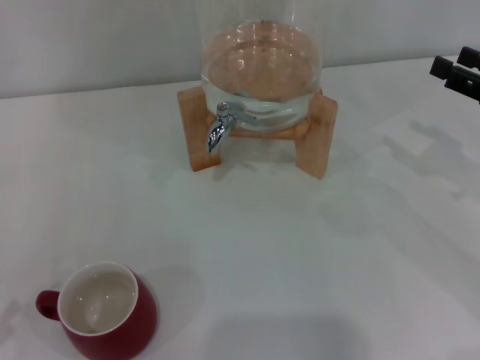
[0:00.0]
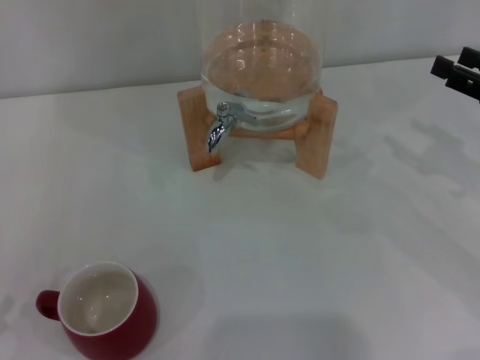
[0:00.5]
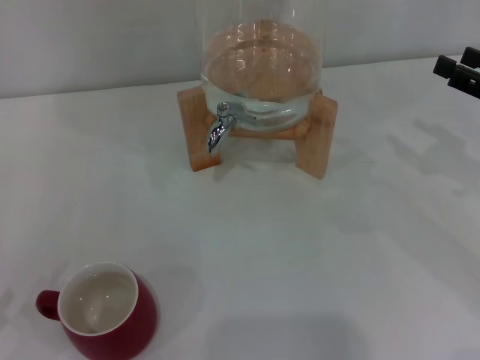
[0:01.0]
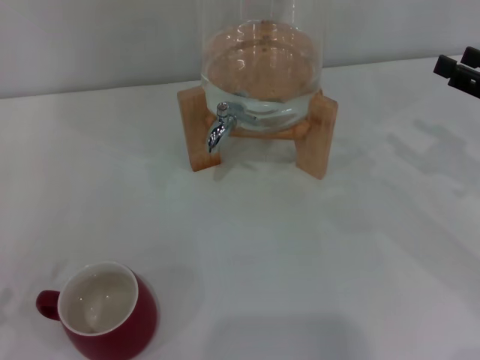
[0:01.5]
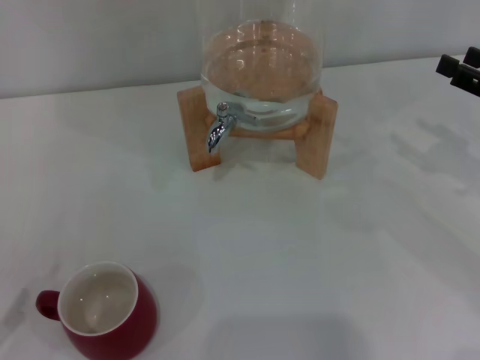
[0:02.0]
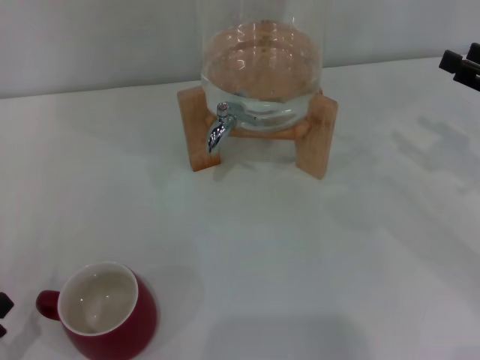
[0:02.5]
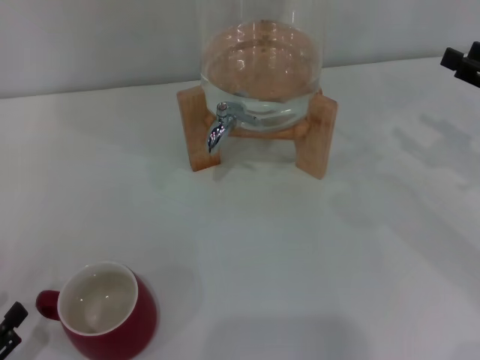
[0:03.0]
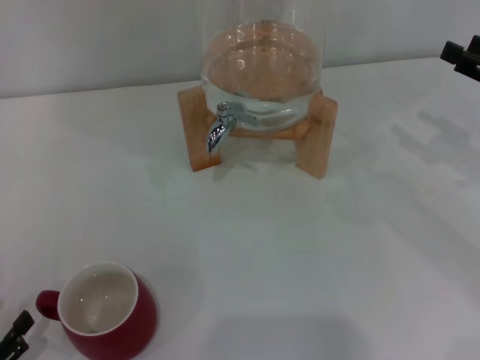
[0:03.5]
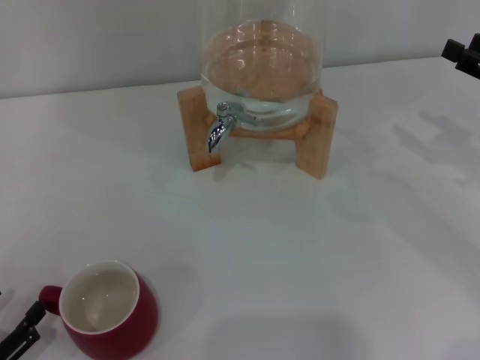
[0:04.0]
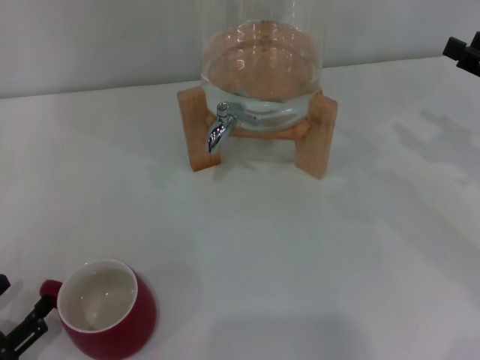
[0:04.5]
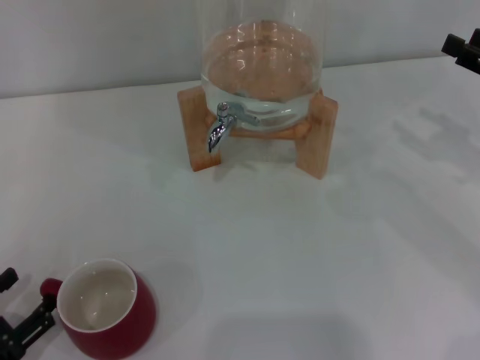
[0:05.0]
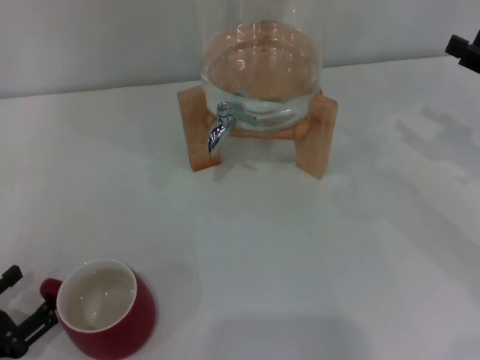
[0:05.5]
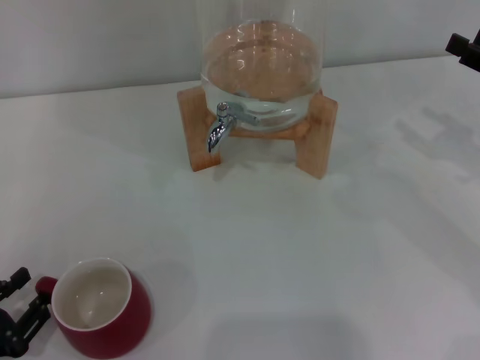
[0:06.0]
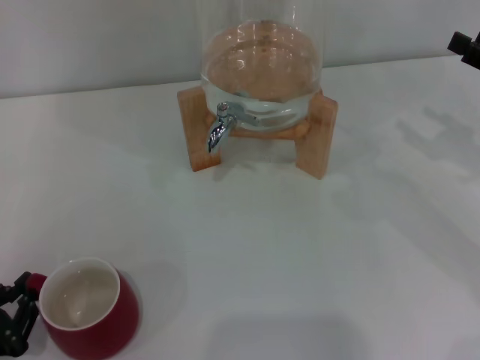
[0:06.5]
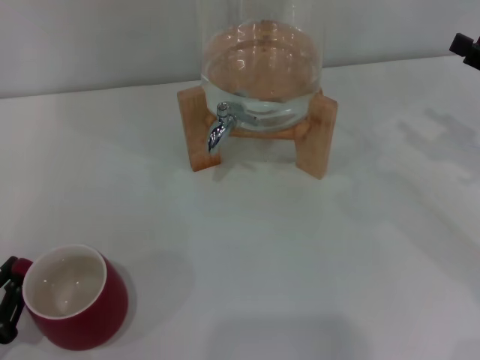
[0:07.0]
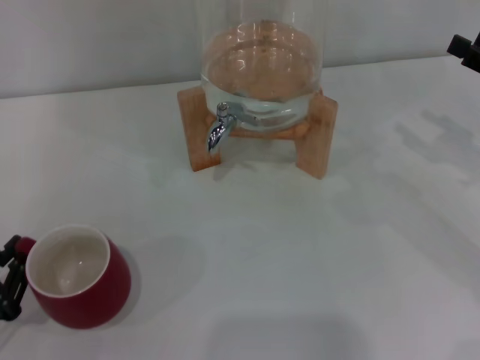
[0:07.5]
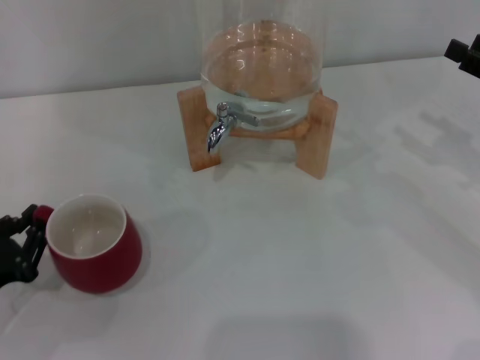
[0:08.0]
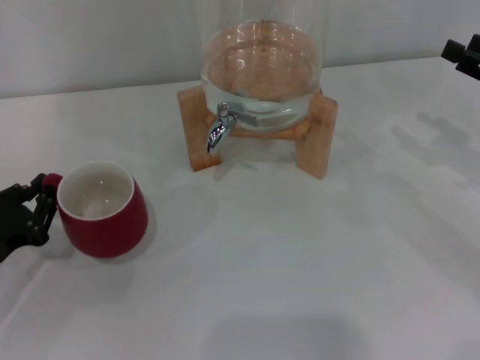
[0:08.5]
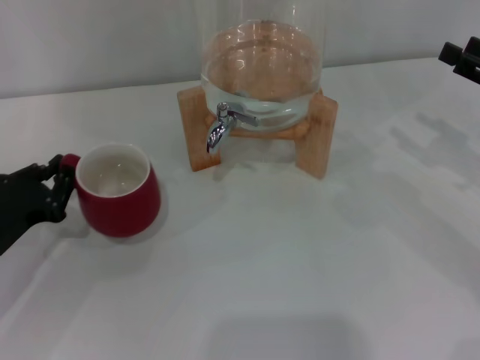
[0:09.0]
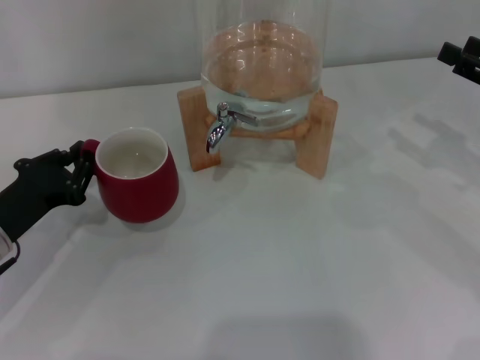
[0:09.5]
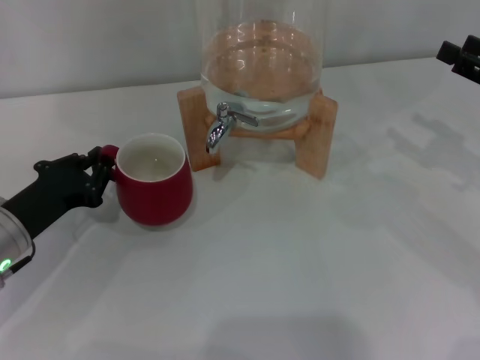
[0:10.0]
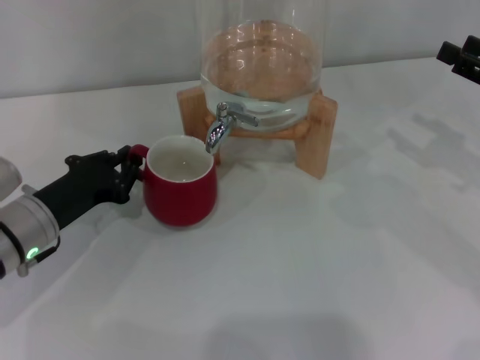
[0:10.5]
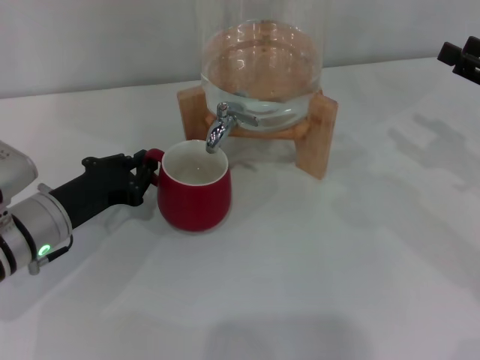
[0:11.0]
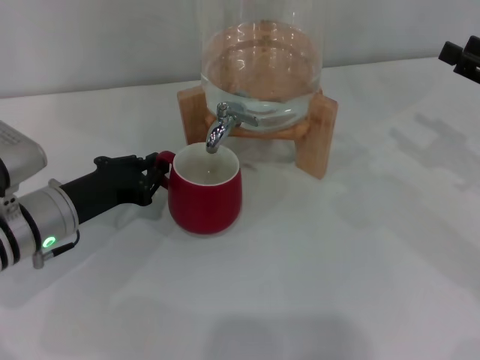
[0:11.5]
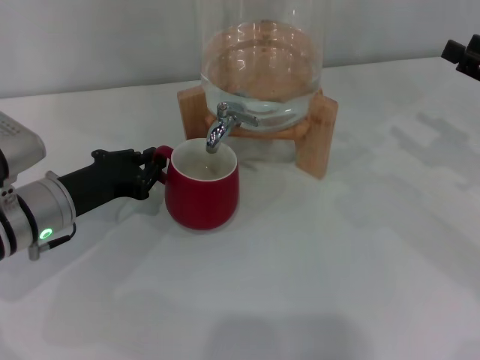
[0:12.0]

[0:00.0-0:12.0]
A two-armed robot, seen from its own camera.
Task of the whole recording: the left gripper pick up the red cup and place it horizontally under the faucet, the right gripper turn on the faucet to fill the cup, and then turn off the faucet.
0:02.0 to 0:04.0: The left gripper shifts some 5 cm downward.
0:04.0 to 0:06.0: The grippers make only small movements.
0:06.0 to 0:08.0: The left gripper heads forward, covering roughly 5 cm, and closes.
0:08.0 to 0:10.0: The left gripper goes some 10 cm forward and to the right.
0:10.0 to 0:12.0: The left gripper shifts by roughly 5 cm.

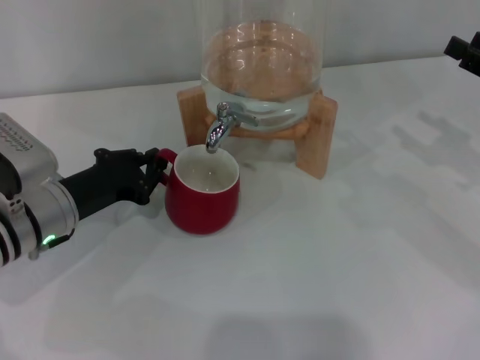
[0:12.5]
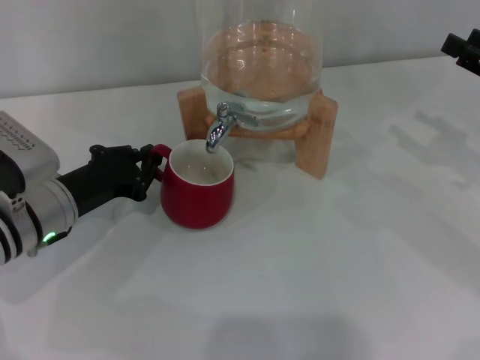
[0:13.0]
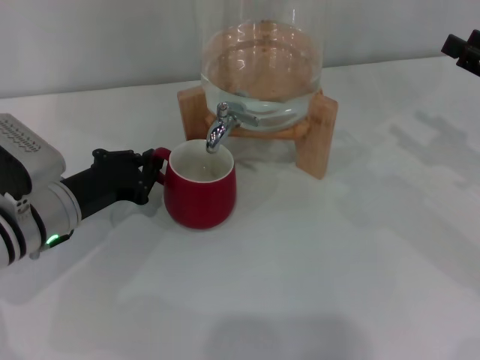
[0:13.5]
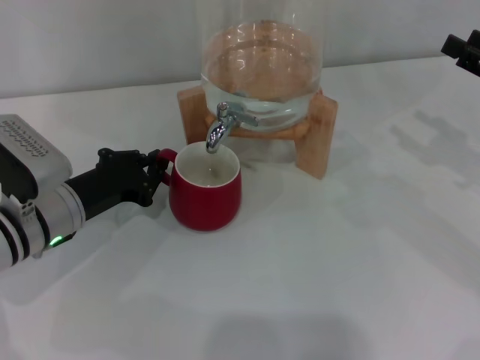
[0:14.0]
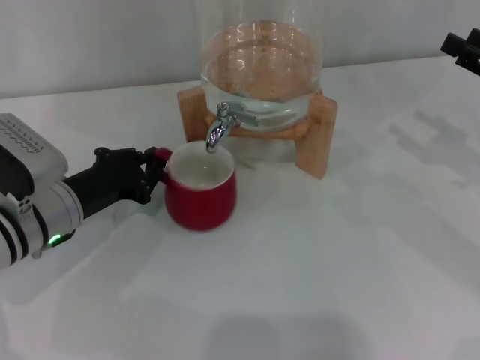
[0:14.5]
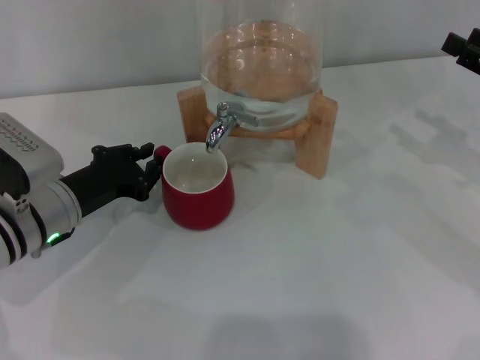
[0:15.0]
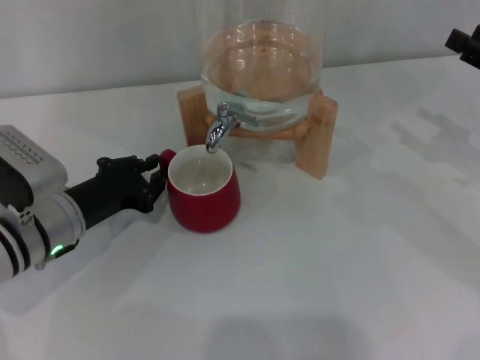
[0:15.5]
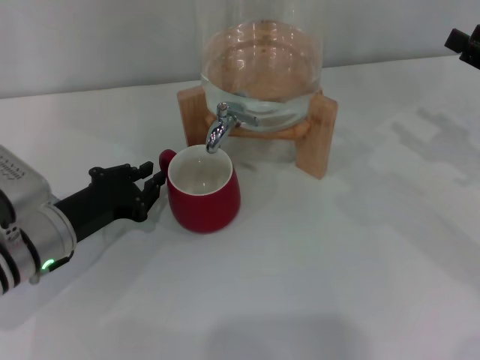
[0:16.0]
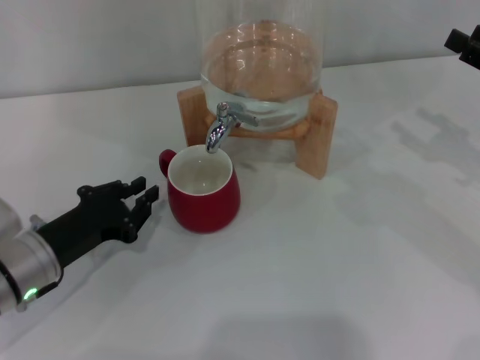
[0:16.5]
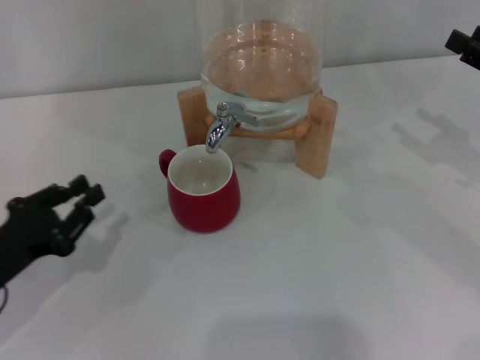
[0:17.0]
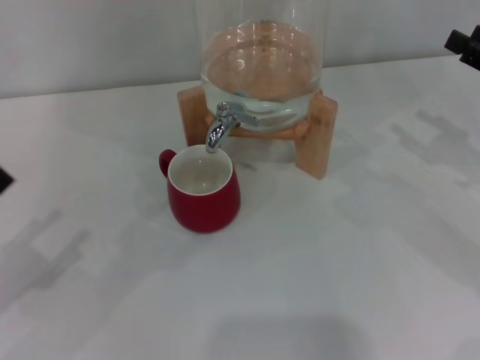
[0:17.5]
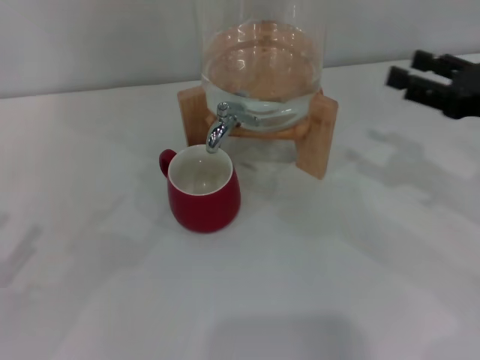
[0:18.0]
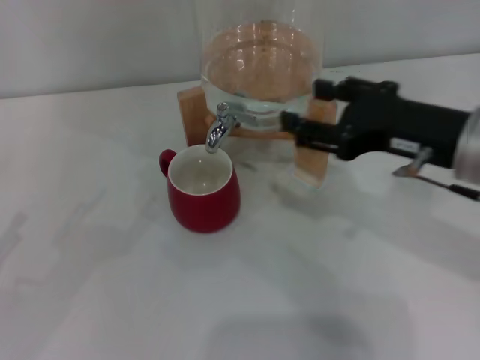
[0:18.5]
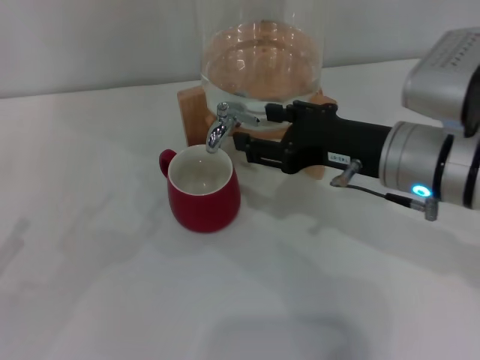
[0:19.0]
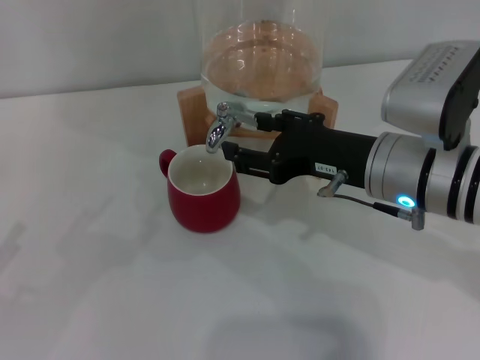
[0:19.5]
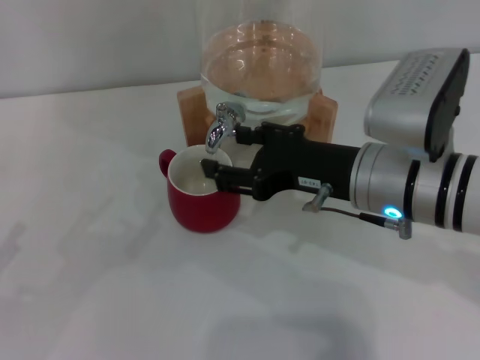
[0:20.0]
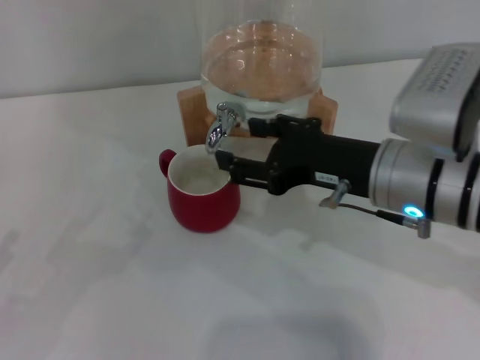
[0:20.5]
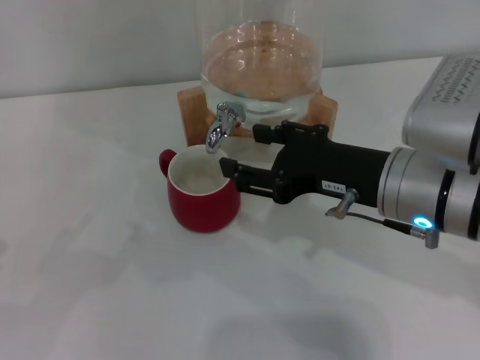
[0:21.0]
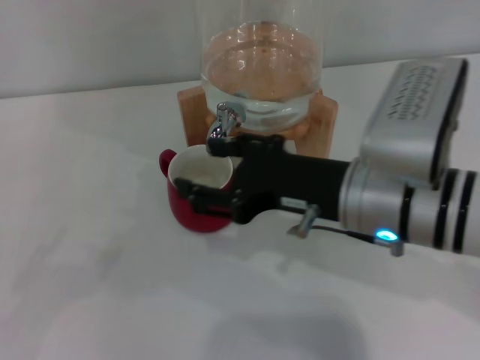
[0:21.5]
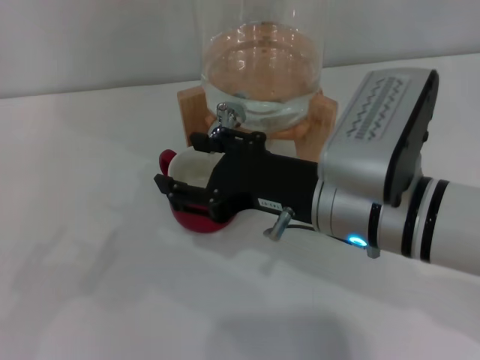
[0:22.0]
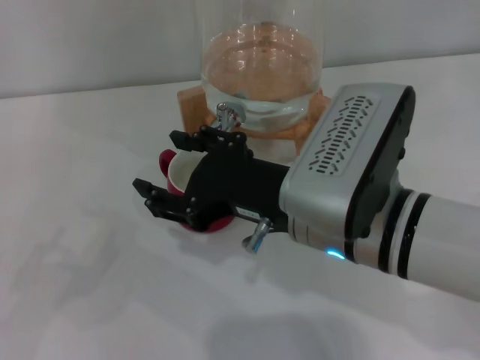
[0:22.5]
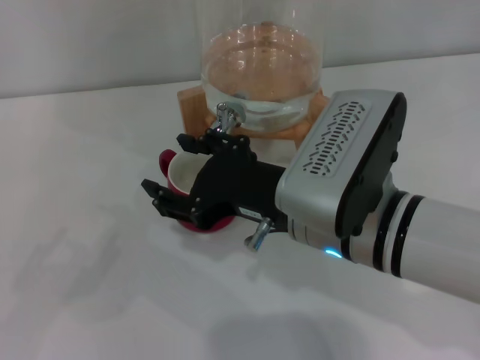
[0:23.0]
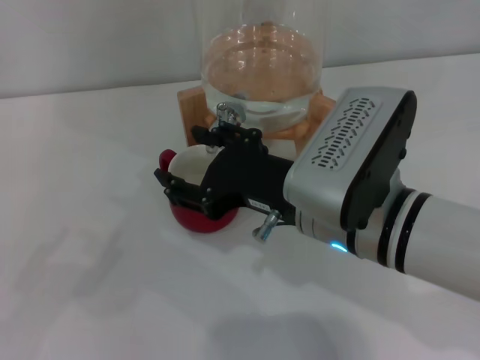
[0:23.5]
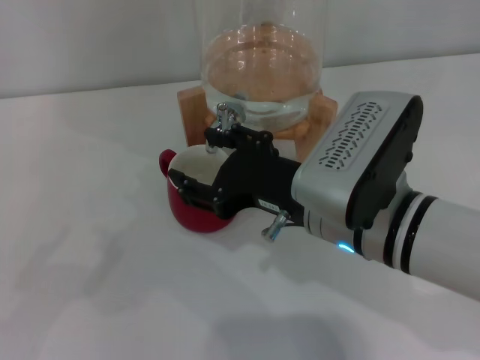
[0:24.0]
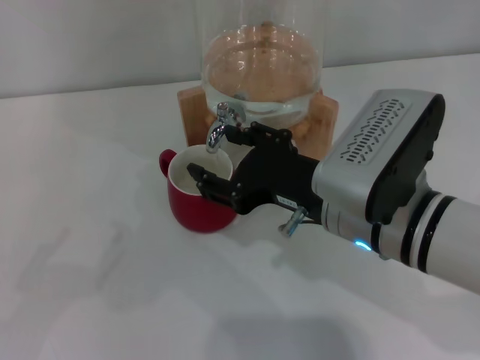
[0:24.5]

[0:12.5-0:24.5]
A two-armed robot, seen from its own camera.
Task of the whole recording: the left gripper pick up the red cup and place it horizontally under the faucet, the right gripper turn on the faucet to fill the cup, and then turn off the faucet.
Step, 0:12.5 to 0:16.5: Move the cup beneath the water dispenser nozzle with the left gripper.
Step, 0:17.0 to 0:22.0: Open the dispenser valve and fill the cup with water with the right gripper.
0:12.5 to 0:14.5: Both grippers stay put.
0:14.5 to 0:16.5: The left gripper changes place by some 5 cm.
0:16.5 to 0:18.5: The right gripper travels to the left by about 15 cm; the left gripper travels to the left, backward and upward by some 20 cm, and opens.
0:18.5 to 0:20.5: The right gripper shifts some 5 cm to the left.
0:20.5 to 0:22.5: The right gripper heads to the left, covering some 5 cm.
0:22.5 to 0:24.5: The grippers make only small movements.

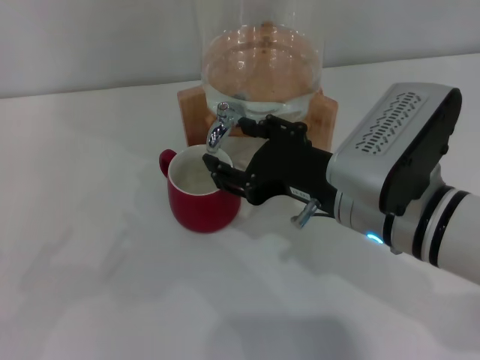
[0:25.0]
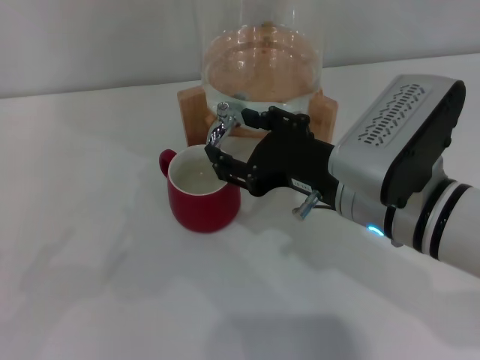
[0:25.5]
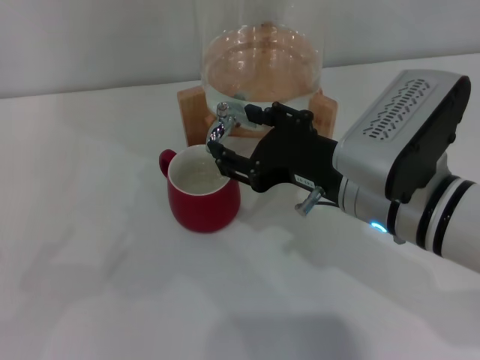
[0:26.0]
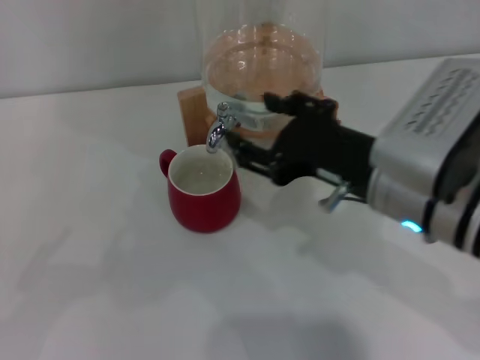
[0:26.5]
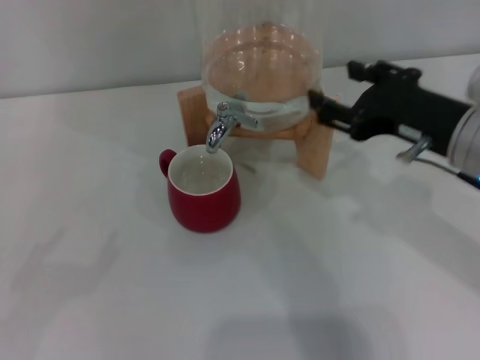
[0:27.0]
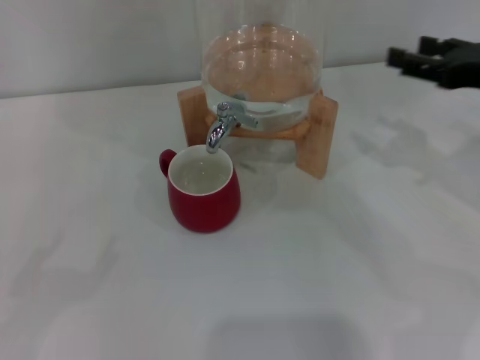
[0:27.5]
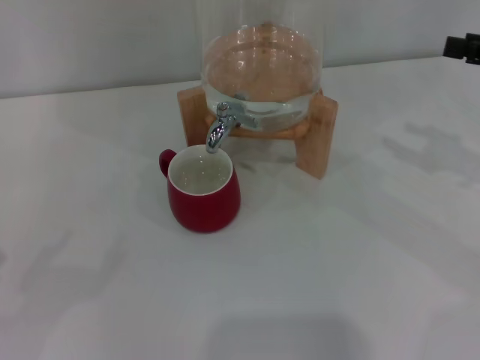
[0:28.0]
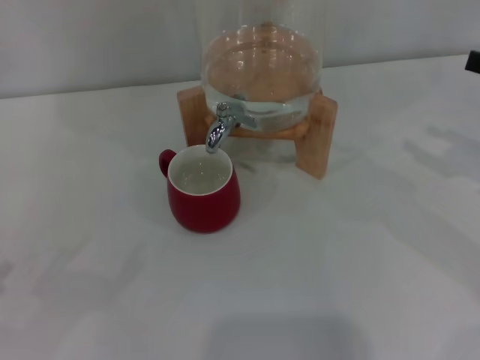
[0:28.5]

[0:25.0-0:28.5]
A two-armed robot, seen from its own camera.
Task of the whole recording: the left gripper pick up the red cup and place it horizontally under the faucet, the right gripper turn on the faucet to fill the cup, and then turn off the faucet.
0:25.0 to 0:27.0: The right gripper is displaced to the right by about 10 cm.
0:27.0 to 0:28.5: The right gripper goes roughly 20 cm to the right.
